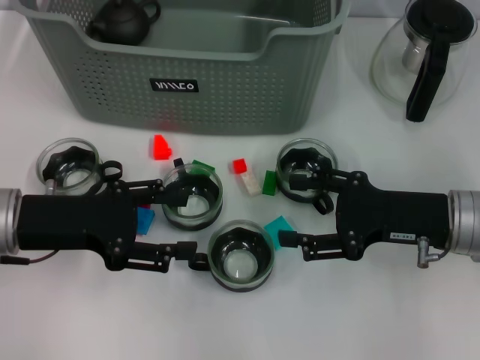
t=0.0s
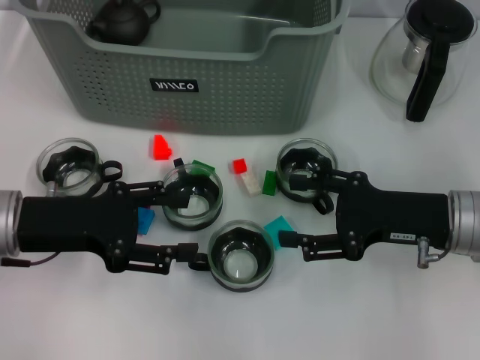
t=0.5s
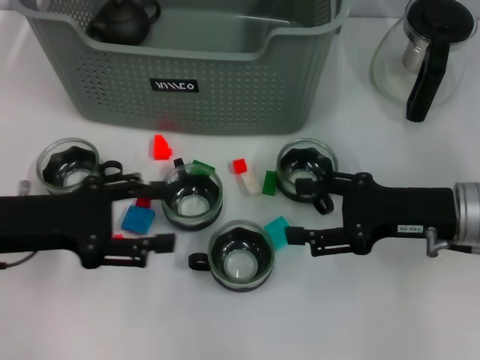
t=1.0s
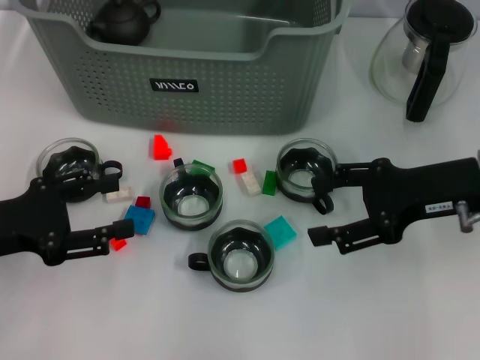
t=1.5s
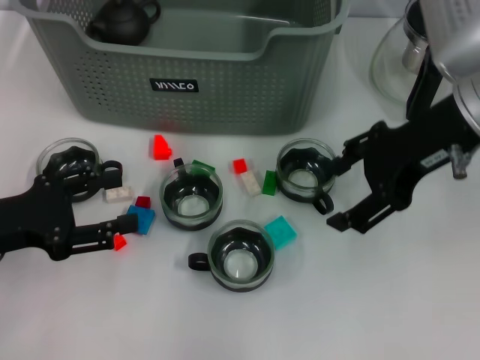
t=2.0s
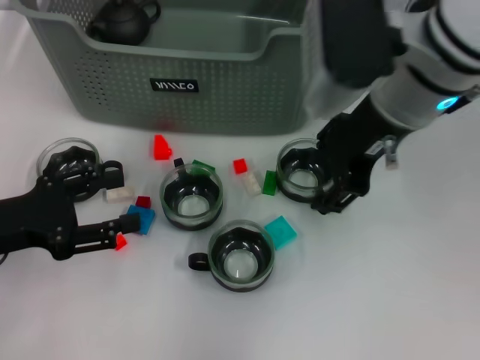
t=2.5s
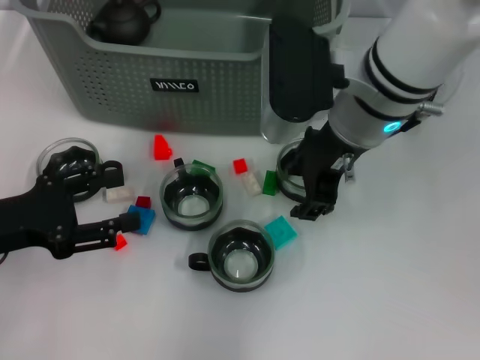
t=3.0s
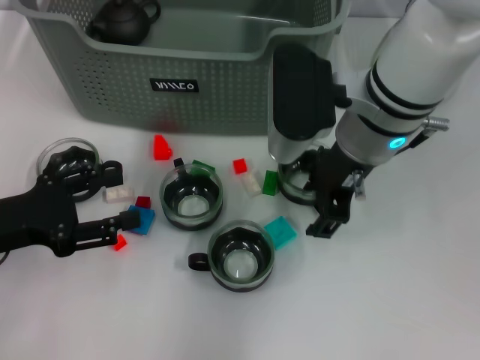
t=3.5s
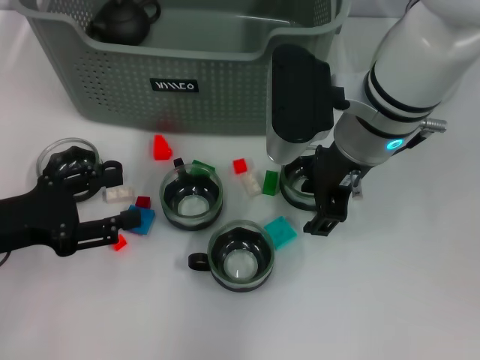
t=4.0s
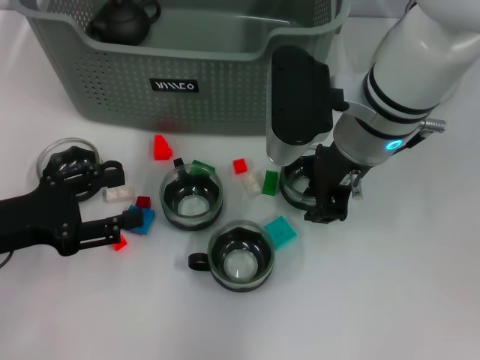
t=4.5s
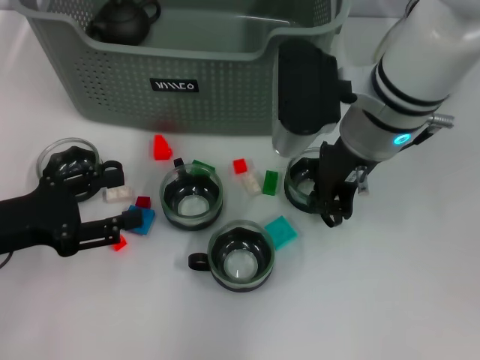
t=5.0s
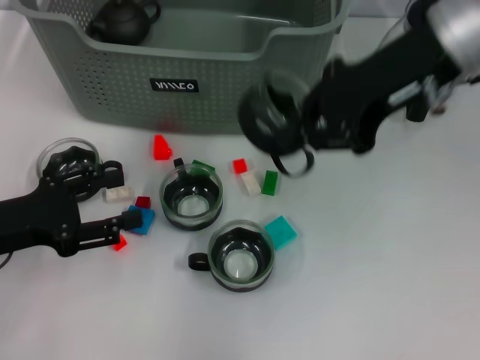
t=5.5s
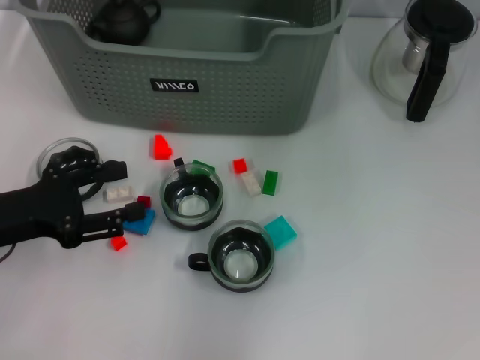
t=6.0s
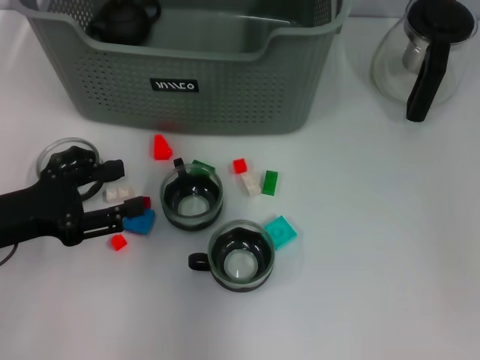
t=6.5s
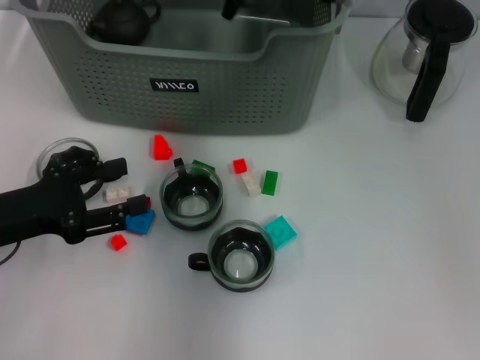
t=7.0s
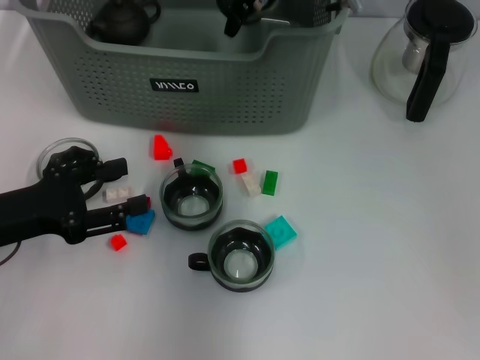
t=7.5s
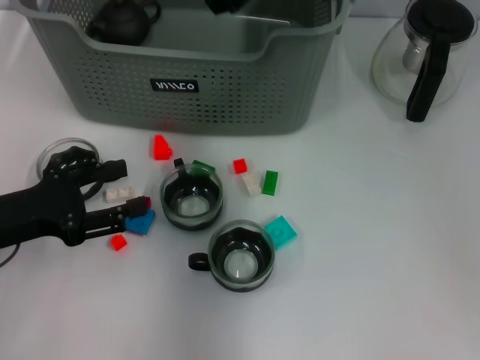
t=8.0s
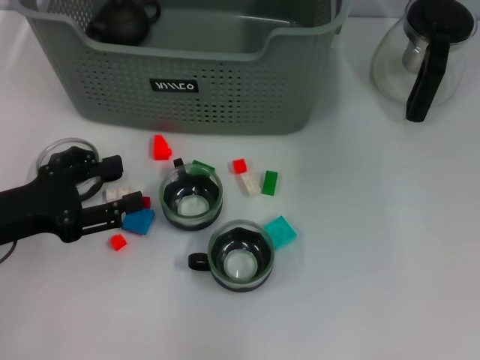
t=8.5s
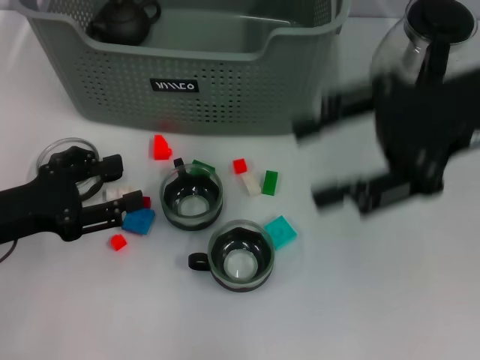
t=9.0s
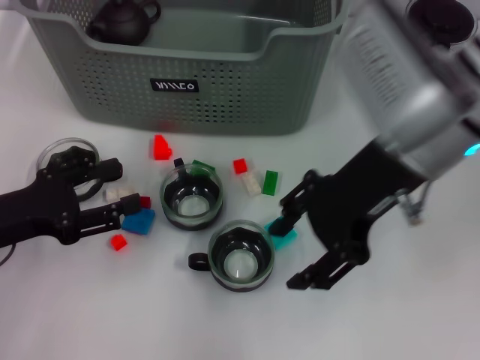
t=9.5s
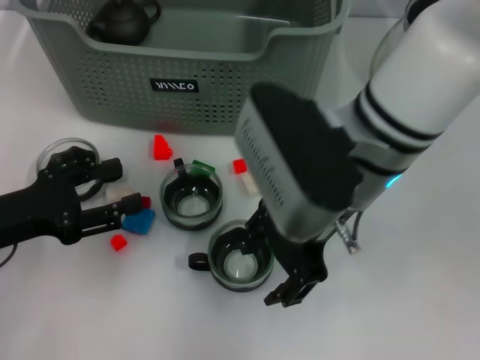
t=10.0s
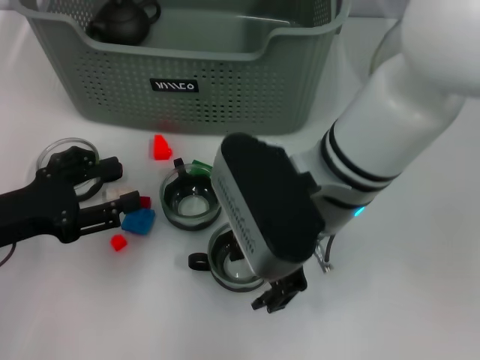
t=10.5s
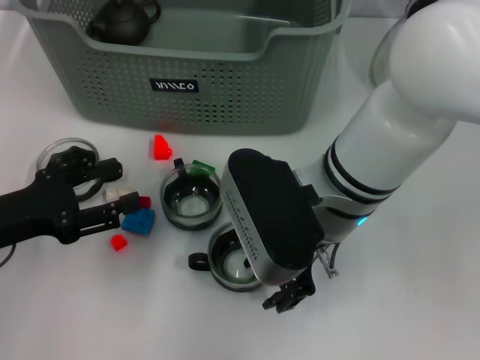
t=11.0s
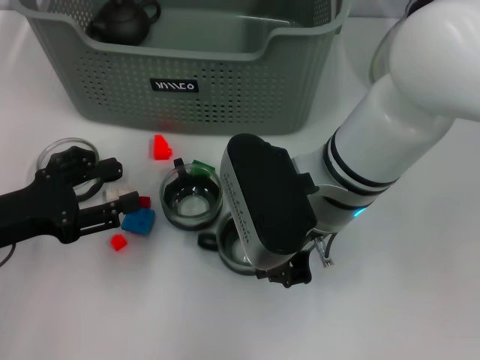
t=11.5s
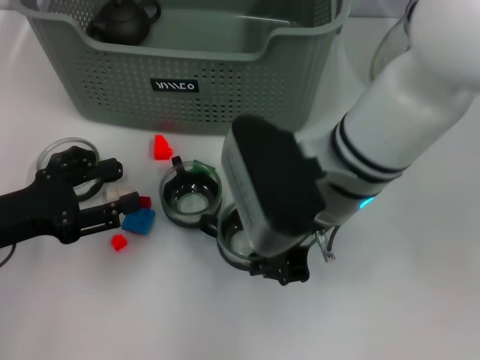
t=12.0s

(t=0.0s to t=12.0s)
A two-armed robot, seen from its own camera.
Task of the whole recording: pick up the teacup on the table and place it into the storage bin, pick up the block on the table and place it into the storage bin.
Step, t=0.0s - t=4.5s: Grasp the cup with right gripper.
Step, t=5.0s - t=8.0s: Place the cup in the storage box with right gripper.
Step, t=8.5s - t=11.5s: Grasp the cup with right gripper.
t=0.0s - t=2.0s: The left gripper ends up about 5 cm from where it was. Meanwhile the right gripper goes approximately 15 cm upward.
t=2.0s - t=4.0s: The right gripper goes approximately 10 cm to the left and downward.
t=4.0s - t=6.0s: The right gripper moves upward, roughly 15 cm, and closes.
t=6.0s - t=8.0s: The right gripper is displaced downward, to the left and forward by approximately 15 cm, and opens its fingers.
t=8.0s - t=10.0s: The right gripper heads backward, covering approximately 15 cm, reaches roughly 15 cm to the right, then returns, and opens its fingers.
t=10.0s - t=12.0s: The right gripper closes its fingers.

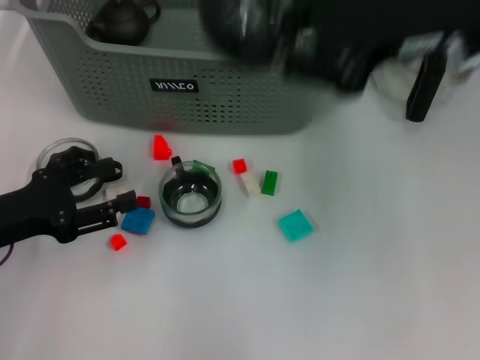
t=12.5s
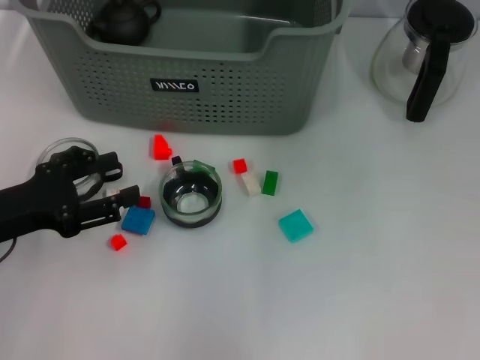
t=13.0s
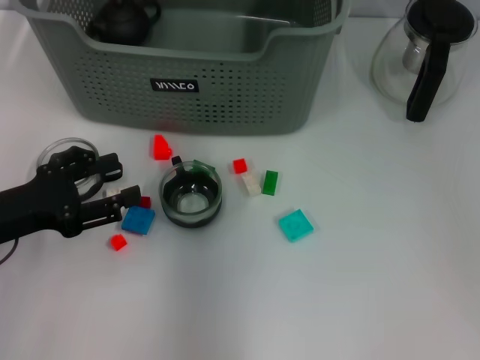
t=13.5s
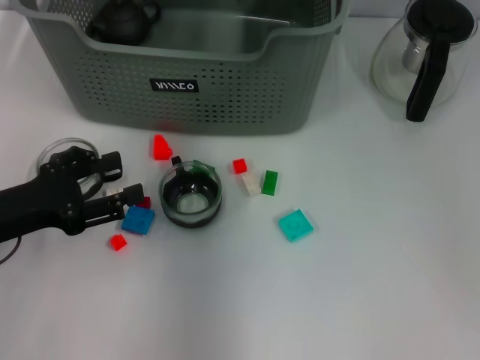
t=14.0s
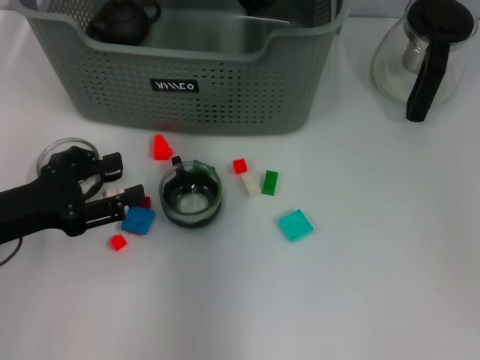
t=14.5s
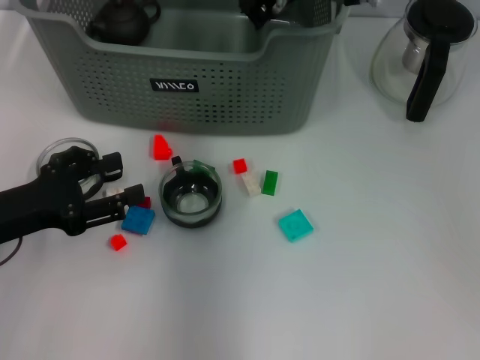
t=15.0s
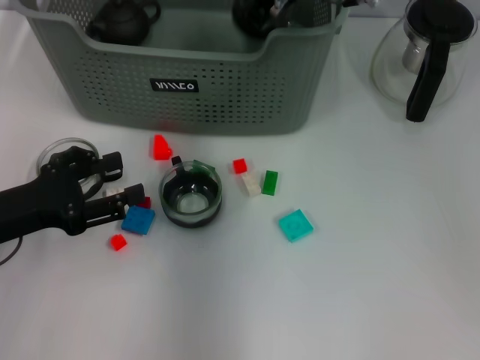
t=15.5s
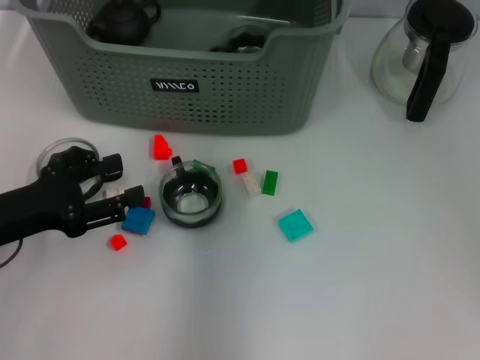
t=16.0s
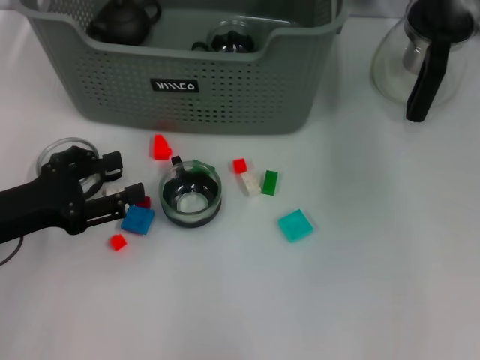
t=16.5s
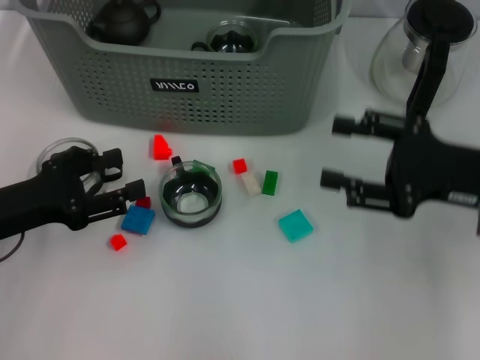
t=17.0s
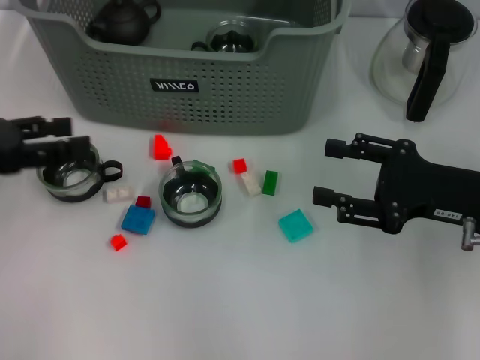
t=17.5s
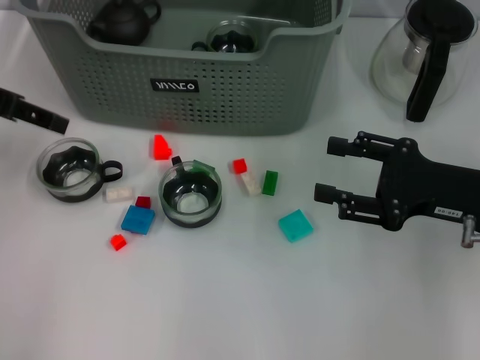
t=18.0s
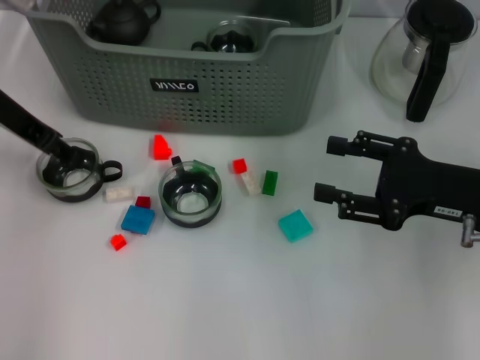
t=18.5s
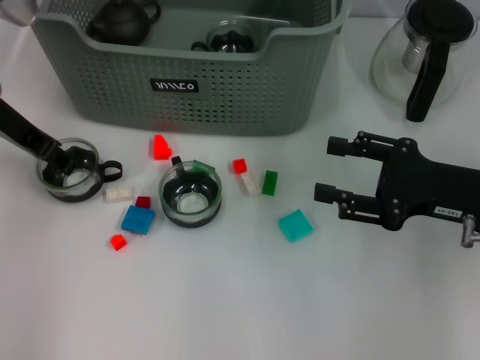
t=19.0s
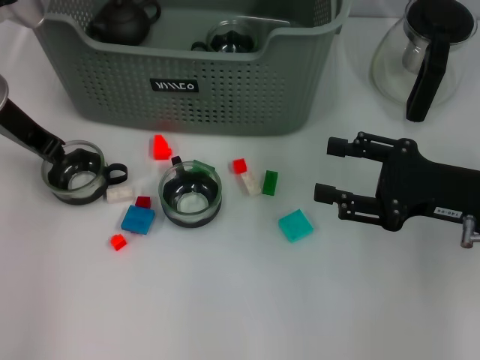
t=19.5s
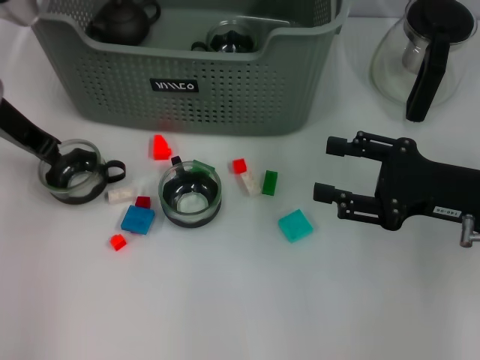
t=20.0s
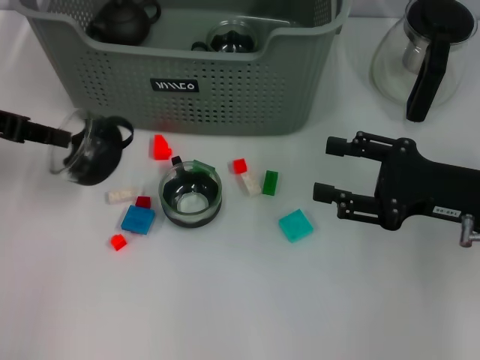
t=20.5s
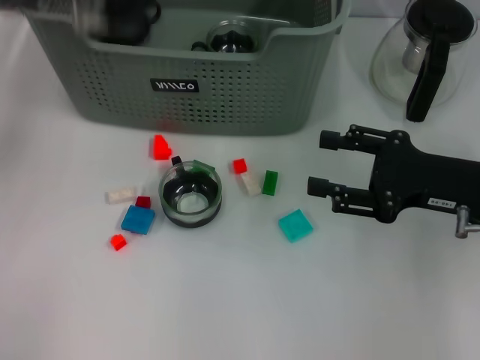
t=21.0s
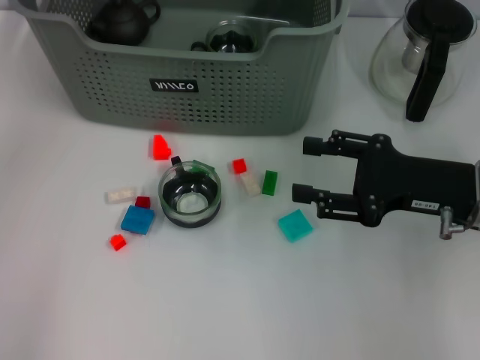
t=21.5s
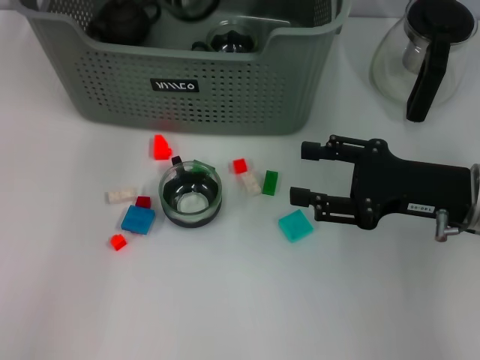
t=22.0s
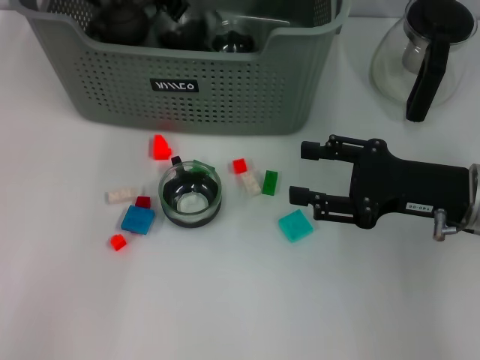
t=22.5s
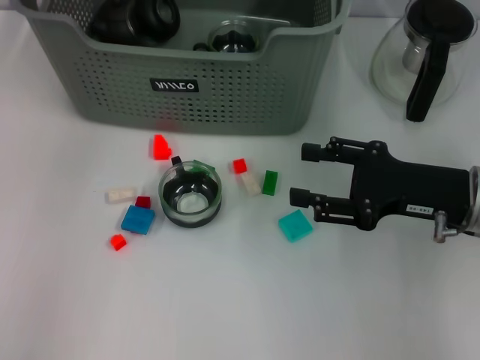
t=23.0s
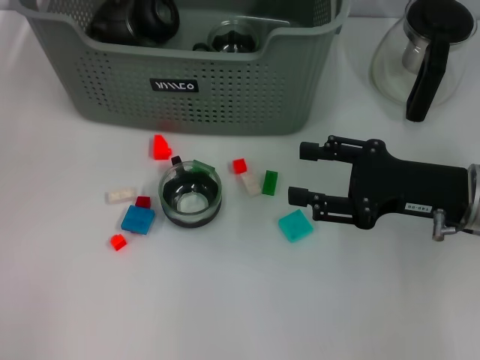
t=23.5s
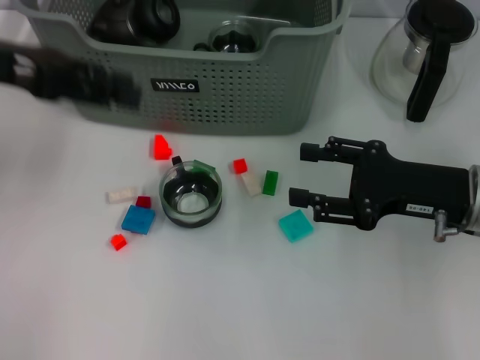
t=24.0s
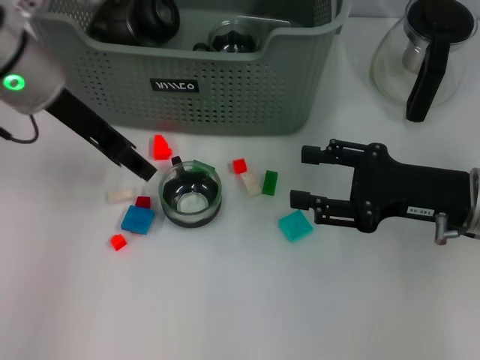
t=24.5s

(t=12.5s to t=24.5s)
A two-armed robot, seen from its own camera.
Task of the whole recording: pick up the teacup on the table and place it into the storage bin, pick up the block on the table and place it into the storage bin.
Step, t=12.5s - t=16.0s: Place the cup in the storage box with right gripper.
Step, t=16.5s - t=19.5s: Grasp the cup with left gripper.
Step, t=20.0s - t=22.5s: Place the cup in the storage box with left gripper.
t=12.5s - t=14.5s: The right gripper heads forward, to the left and downward, covering roughly 20 cm.
t=14.5s - t=16.5s: The right gripper goes approximately 15 cm to the right and backward, and opens.
t=16.5s - t=18.5s: The right gripper goes approximately 15 cm downward and backward, while the left gripper travels forward and upward by some 20 cm.
t=18.5s - t=20.5s: The left gripper heads to the left, covering about 10 cm, and closes its fingers.
t=20.5s - t=22.5s: The left gripper heads to the right and forward, covering about 25 cm.
t=22.5s - t=24.5s: The left gripper goes some 15 cm backward and to the left, and opens its fingers.

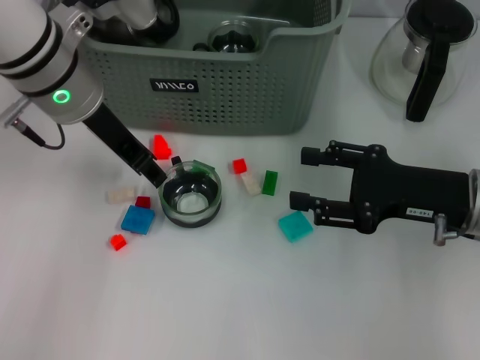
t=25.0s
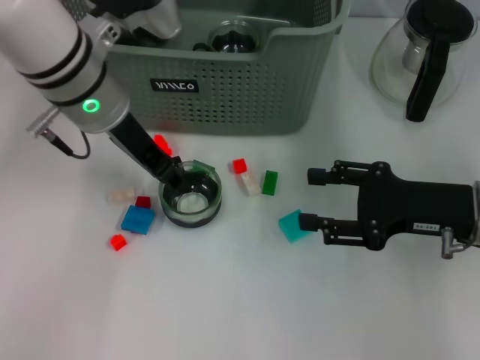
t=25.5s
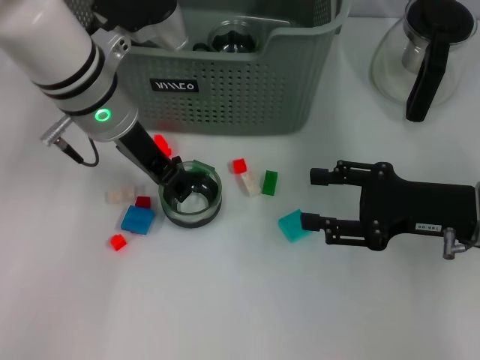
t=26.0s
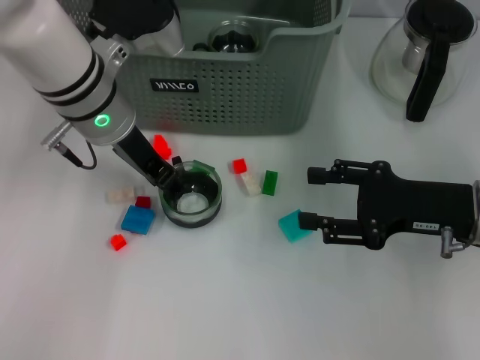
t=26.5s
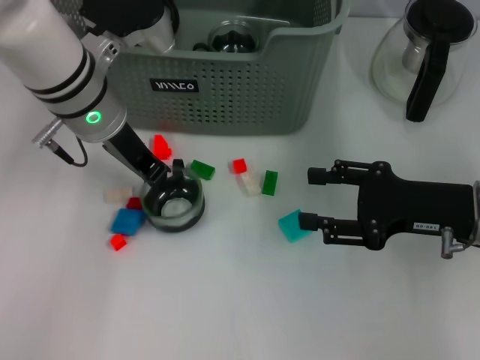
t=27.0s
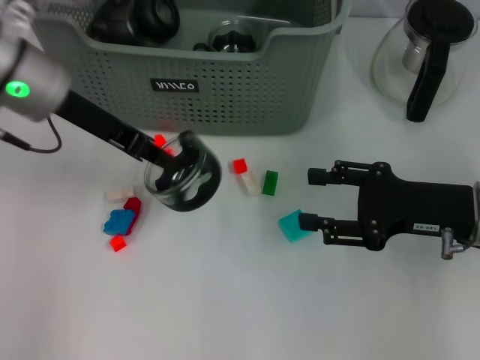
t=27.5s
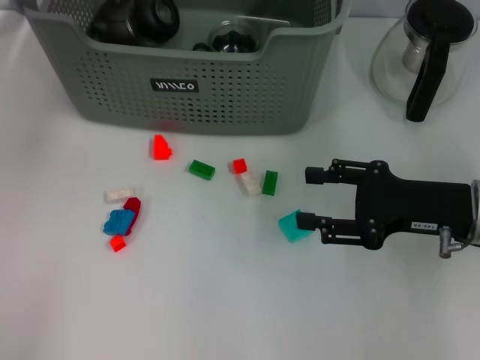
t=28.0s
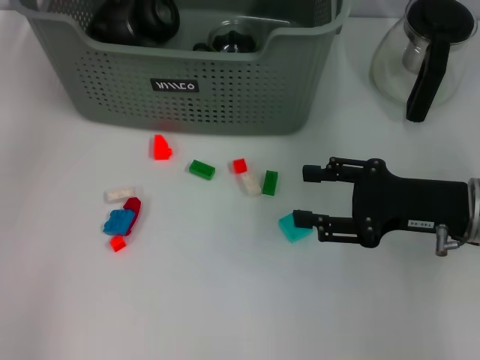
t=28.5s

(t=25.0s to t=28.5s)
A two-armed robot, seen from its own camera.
Task of the whole recording: pick up the teacup on the table and place it into the storage bin, pick up the block on the table and place it into the storage bin.
t=25.0s - t=27.0s: The grippers move only a little.
t=27.0s - t=28.5s: The left gripper is displaced upward, to the left and forward by about 20 cm.
